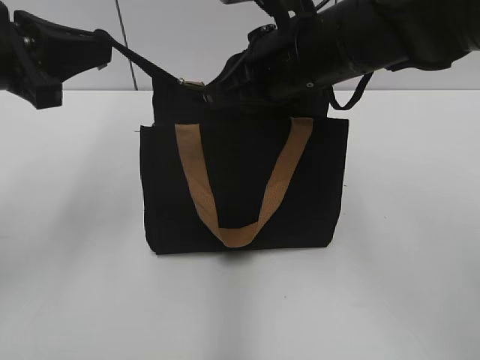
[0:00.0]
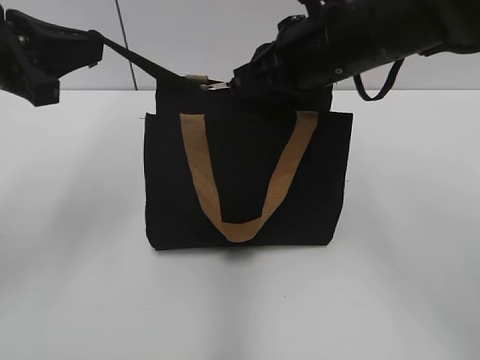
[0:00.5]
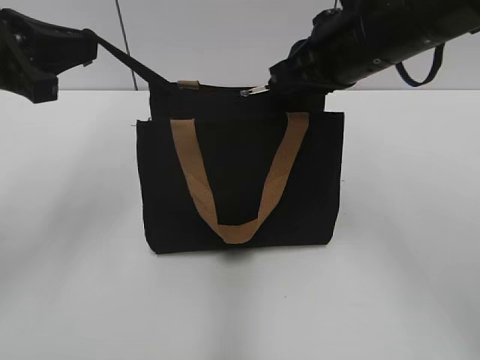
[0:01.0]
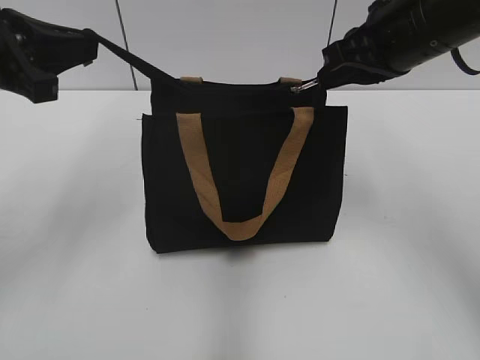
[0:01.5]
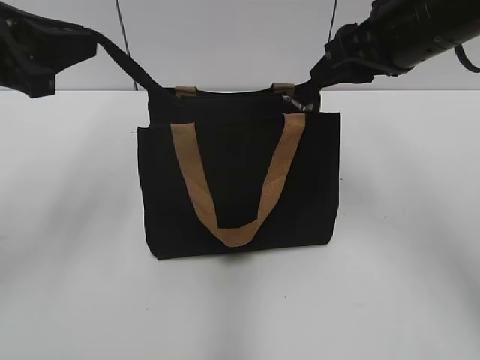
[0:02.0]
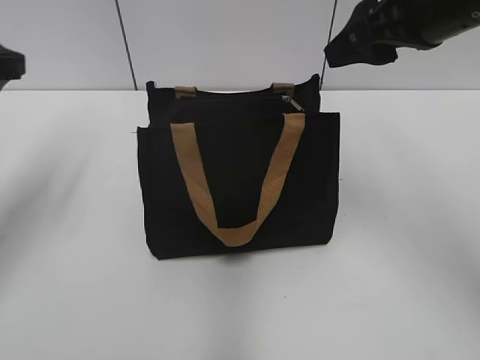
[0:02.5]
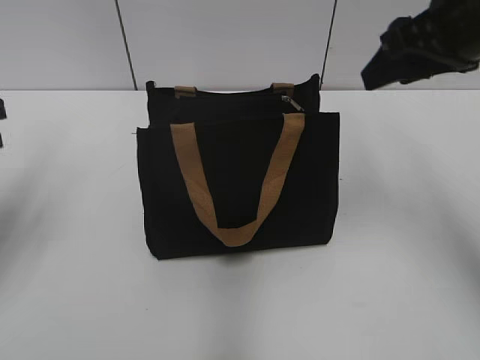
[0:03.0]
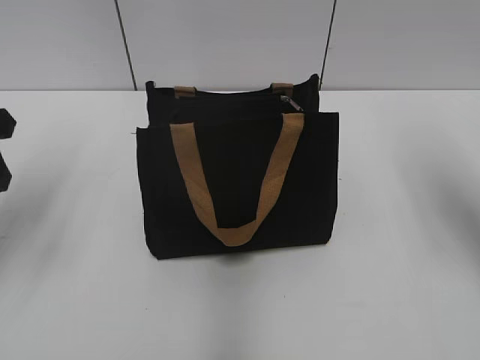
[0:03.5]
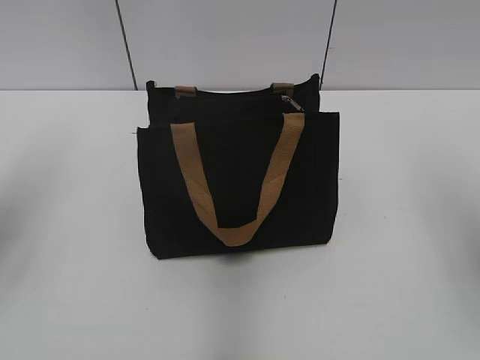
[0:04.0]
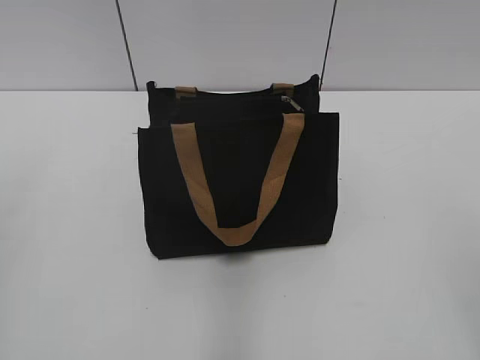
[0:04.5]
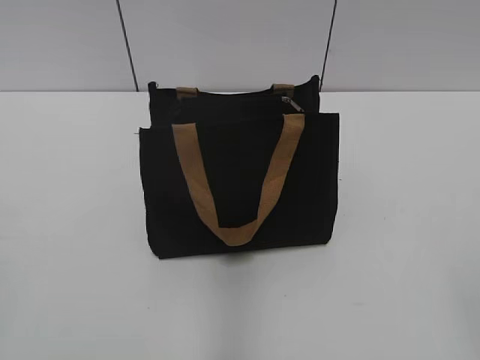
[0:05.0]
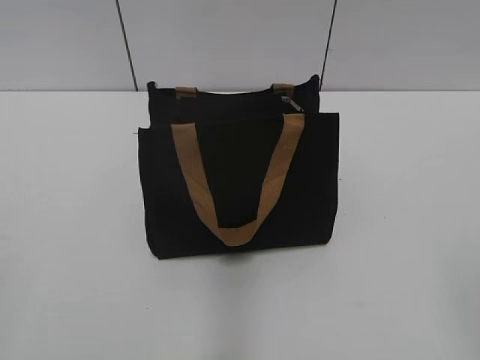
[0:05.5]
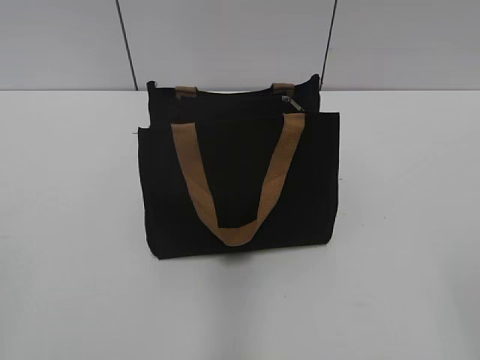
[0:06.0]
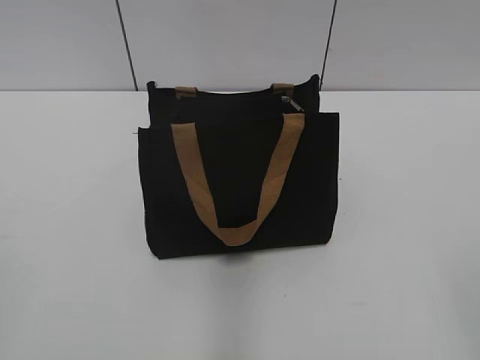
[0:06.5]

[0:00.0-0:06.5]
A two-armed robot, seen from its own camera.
0:00.0 to 0:02.0: The right gripper goes some 10 cm to the right, and opens up.
0:02.0 to 0:04.5: The right gripper is displaced backward by about 25 cm, and opens, while the left gripper heads backward and to the left, covering some 15 cm, and opens.
